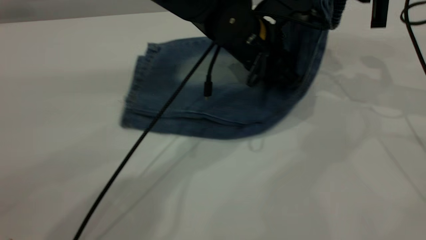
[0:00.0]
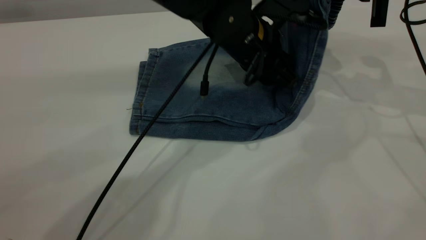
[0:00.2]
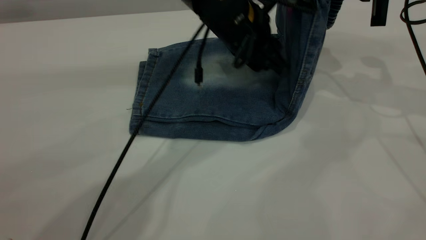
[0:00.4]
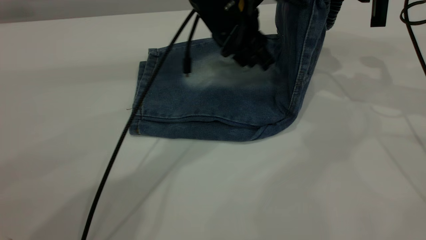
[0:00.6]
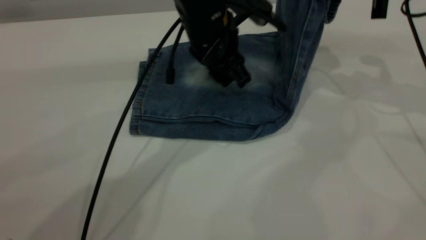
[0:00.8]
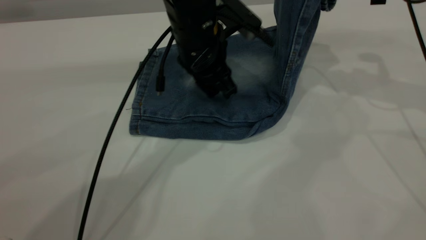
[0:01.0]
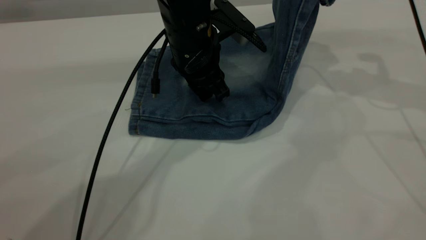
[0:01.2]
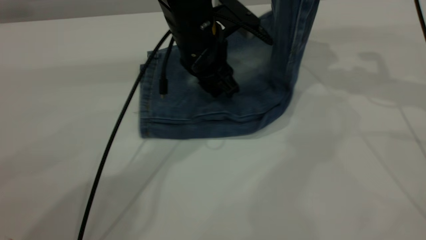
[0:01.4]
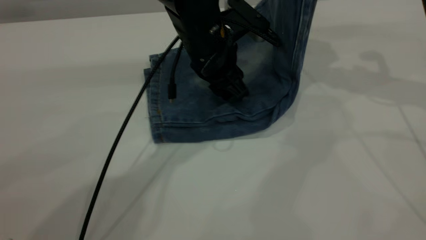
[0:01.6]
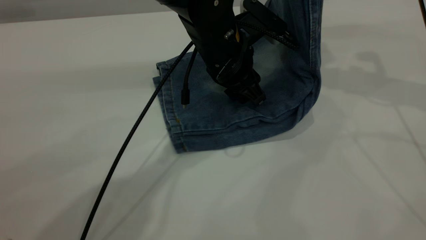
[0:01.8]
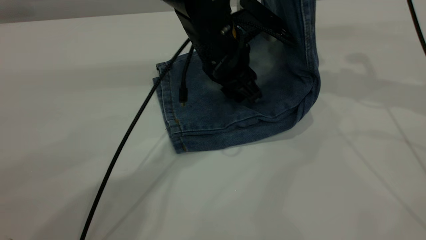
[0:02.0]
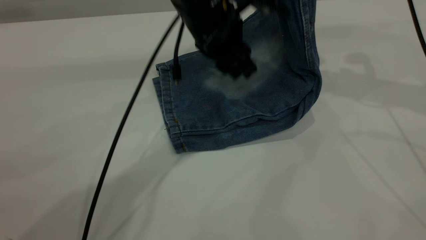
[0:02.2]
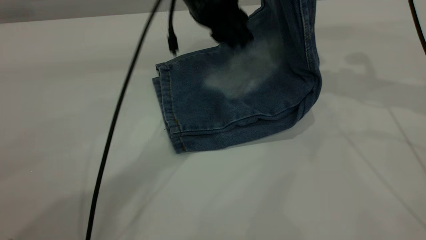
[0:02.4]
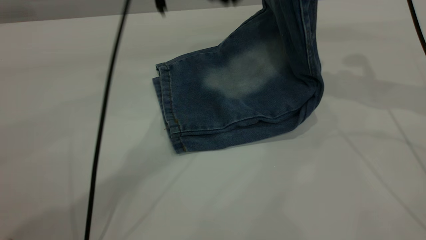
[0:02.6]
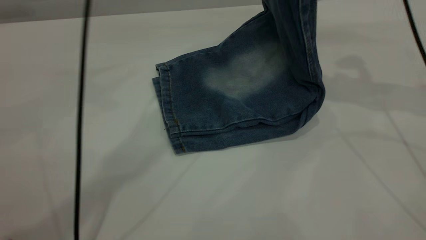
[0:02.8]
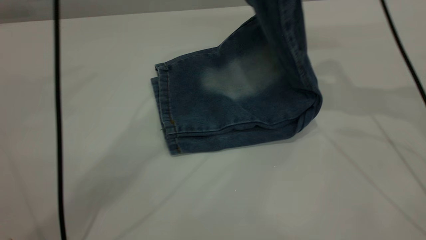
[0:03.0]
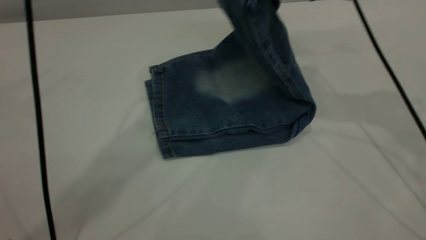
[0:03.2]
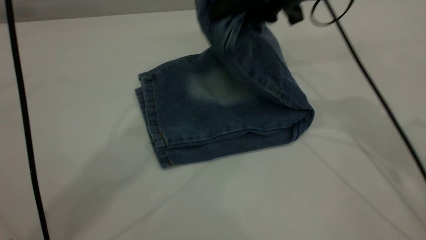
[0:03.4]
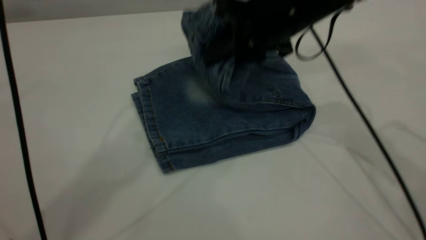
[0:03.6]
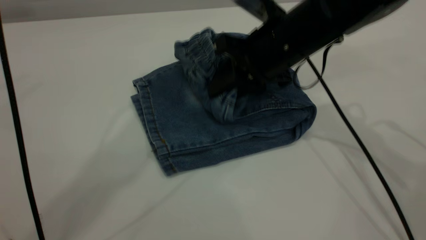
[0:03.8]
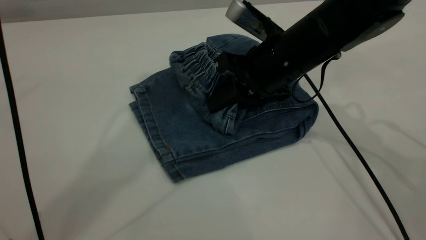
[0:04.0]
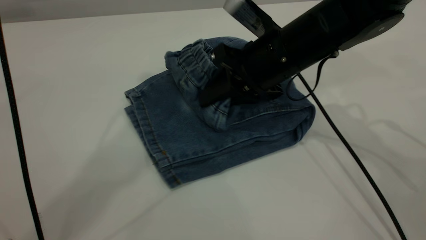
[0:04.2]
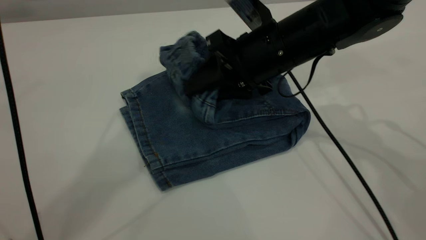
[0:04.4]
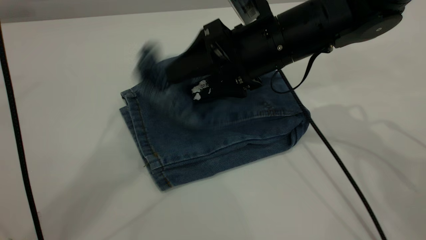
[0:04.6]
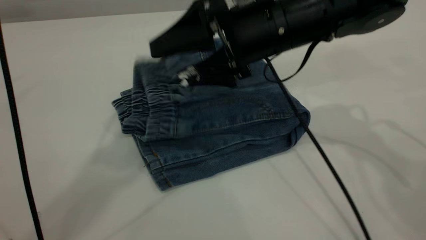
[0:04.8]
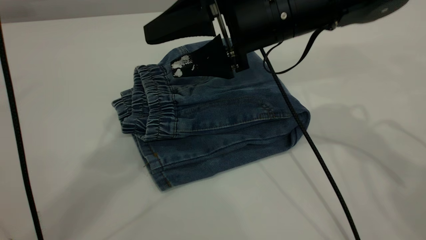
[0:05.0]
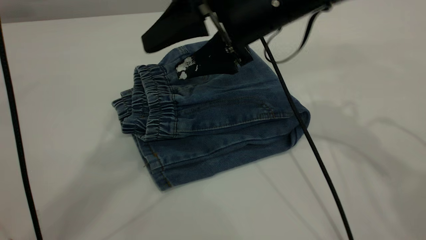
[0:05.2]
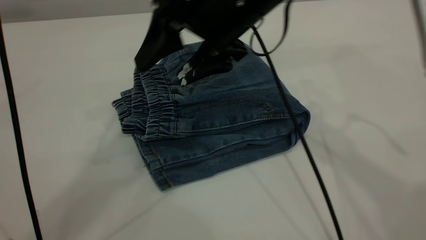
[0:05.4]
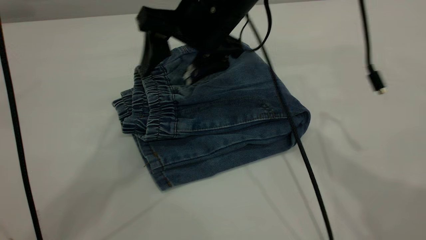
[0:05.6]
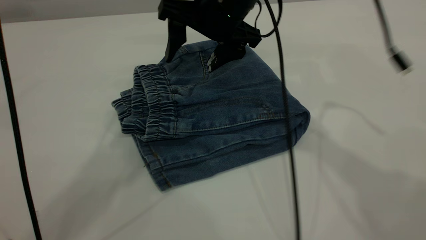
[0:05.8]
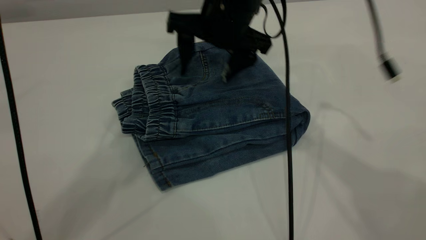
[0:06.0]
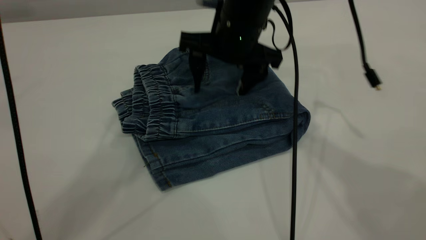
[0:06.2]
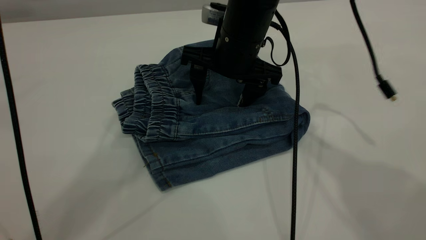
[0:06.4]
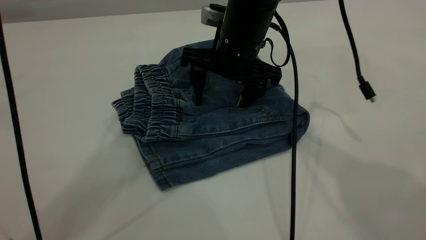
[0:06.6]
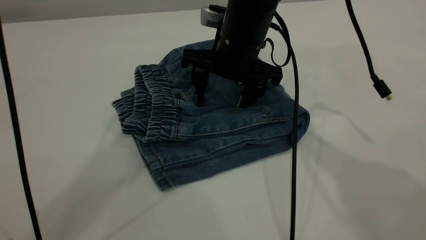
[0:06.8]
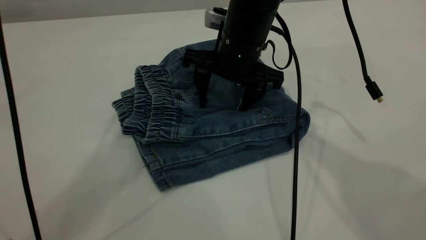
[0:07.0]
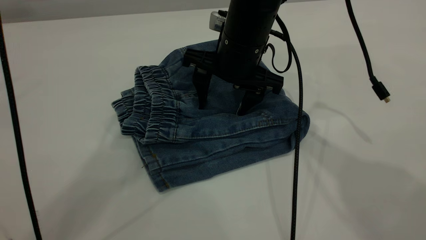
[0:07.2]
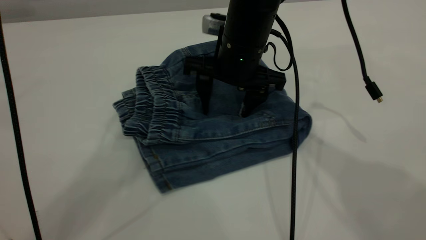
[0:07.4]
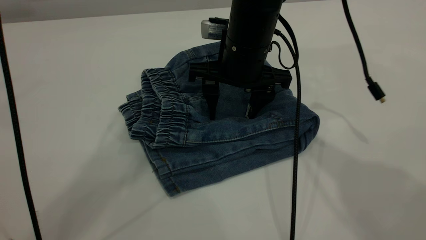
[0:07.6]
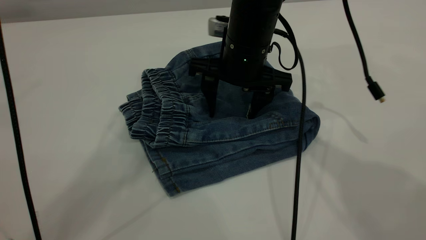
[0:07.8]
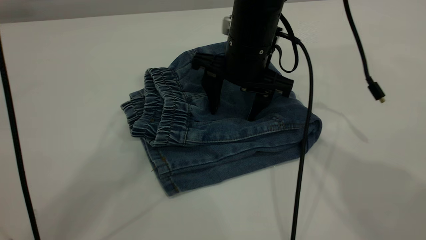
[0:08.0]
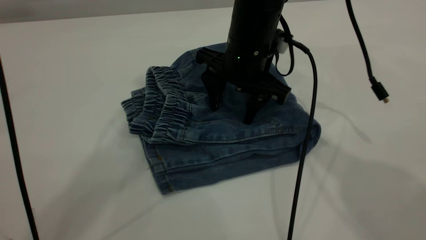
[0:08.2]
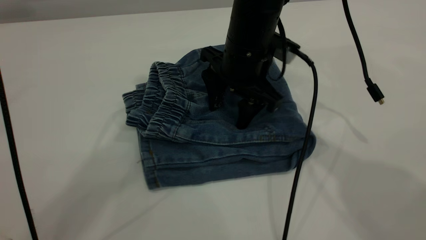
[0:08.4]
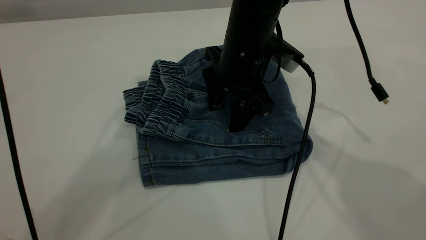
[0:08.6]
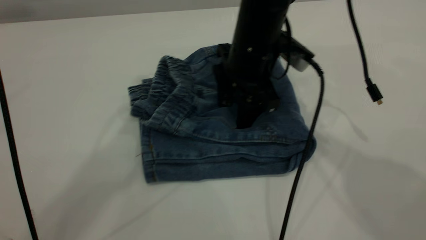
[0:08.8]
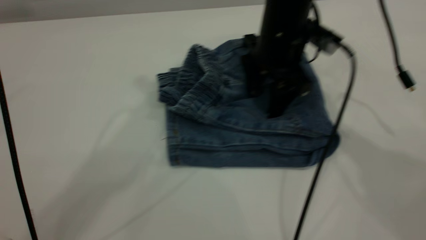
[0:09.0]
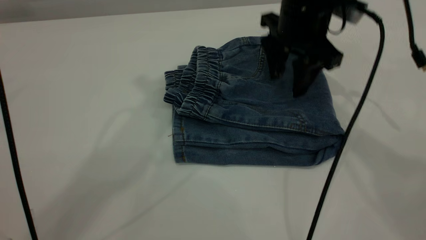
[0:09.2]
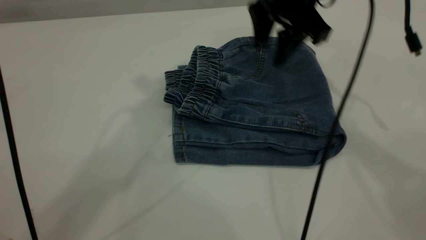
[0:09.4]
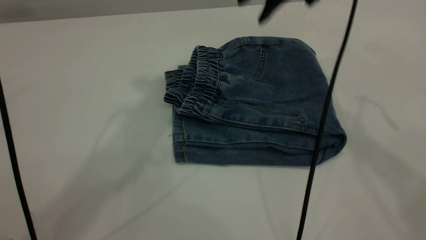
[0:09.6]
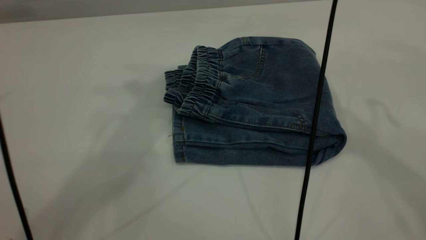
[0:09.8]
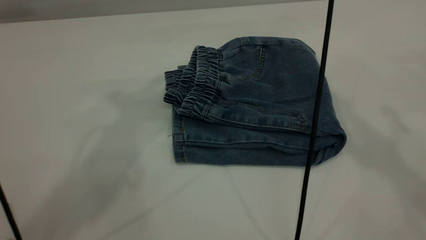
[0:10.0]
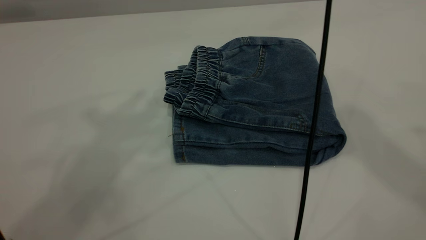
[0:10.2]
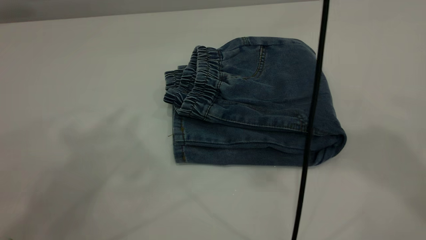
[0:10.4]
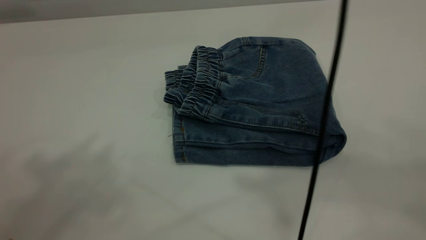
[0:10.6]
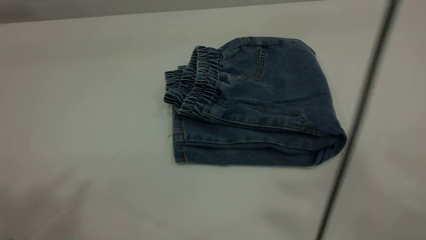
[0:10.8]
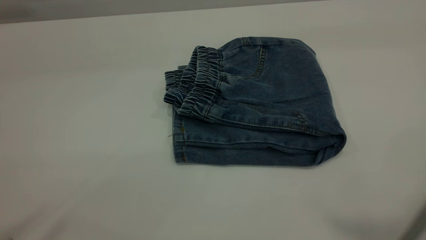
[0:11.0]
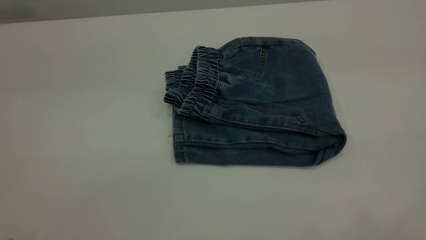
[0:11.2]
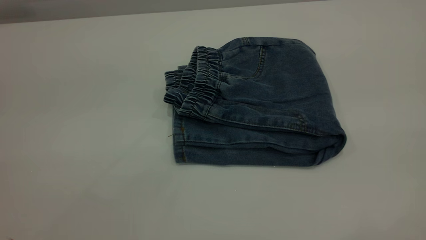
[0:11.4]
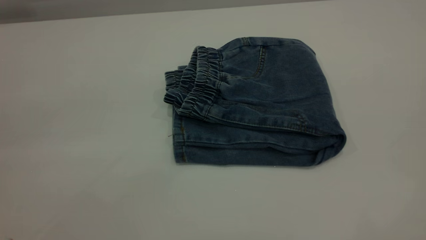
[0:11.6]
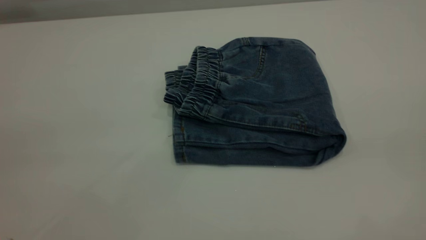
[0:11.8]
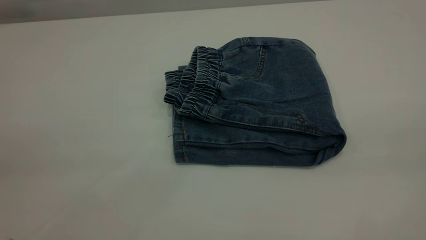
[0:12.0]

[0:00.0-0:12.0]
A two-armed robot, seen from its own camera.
Step, 0:00.0 to 0:04.8: Fold your pants from right to left.
0:00.0 to 0:01.6: The right gripper shifts roughly 5 cm upward; the left gripper travels to the left by about 5 cm.
0:01.6 to 0:03.0: The right gripper shifts approximately 5 cm to the left; the left gripper shifts approximately 30 cm upward.
0:03.0 to 0:04.4: The left gripper goes roughly 5 cm upward. The right gripper moves downward and to the left, some 15 cm, and opens up.
0:04.4 to 0:06.0: The right gripper moves some 10 cm, and opens its fingers.
0:07.6 to 0:09.0: The right gripper travels to the right by about 5 cm.
0:09.0 to 0:10.4: The left gripper shifts some 15 cm backward, to the left and upward. The right gripper heads upward, covering some 35 cm.
0:10.4 to 0:12.0: The right gripper goes roughly 35 cm backward and to the right.

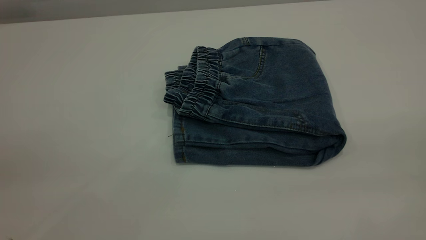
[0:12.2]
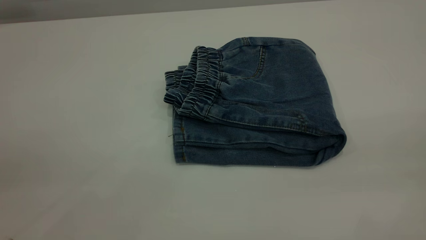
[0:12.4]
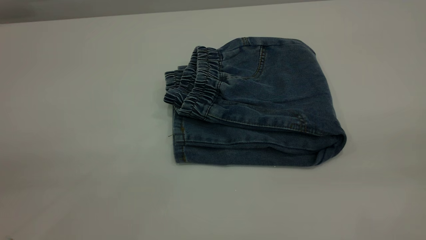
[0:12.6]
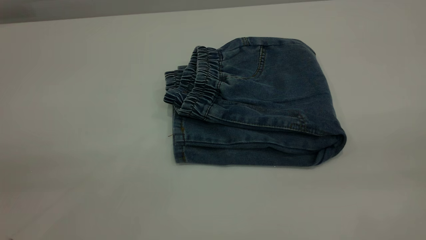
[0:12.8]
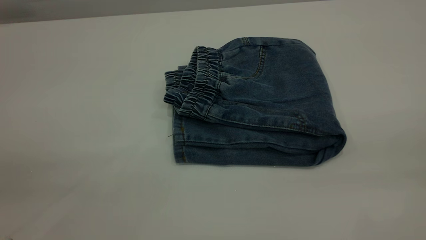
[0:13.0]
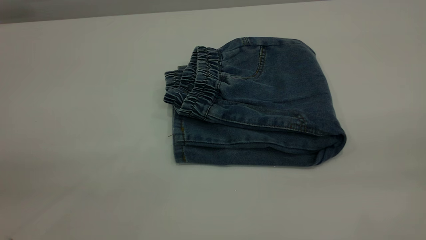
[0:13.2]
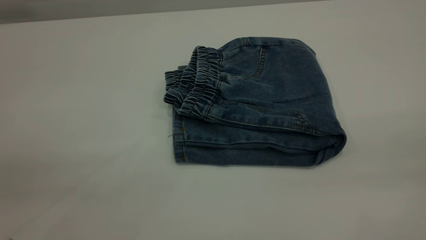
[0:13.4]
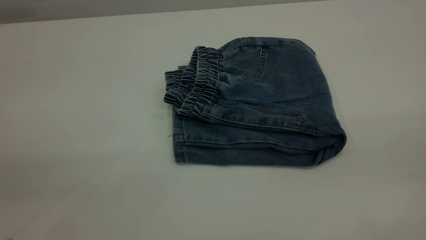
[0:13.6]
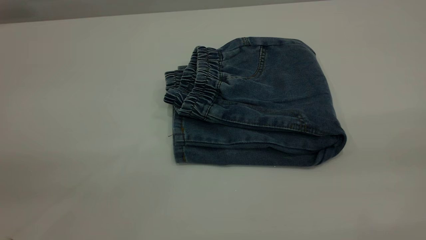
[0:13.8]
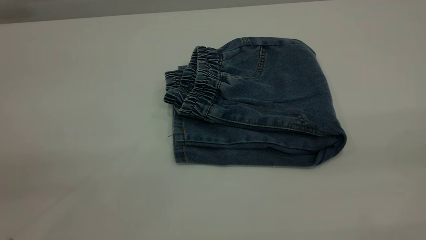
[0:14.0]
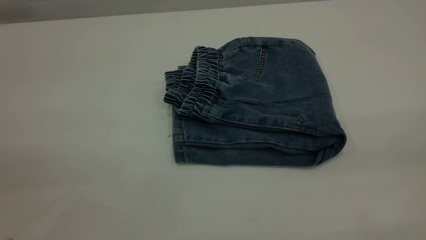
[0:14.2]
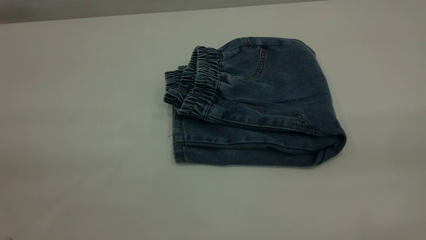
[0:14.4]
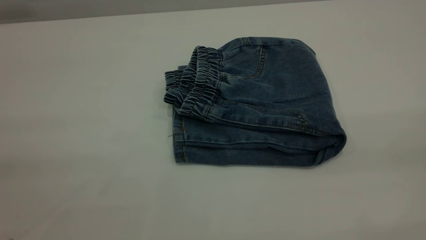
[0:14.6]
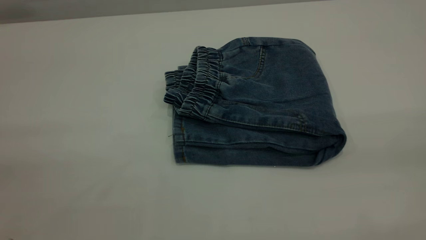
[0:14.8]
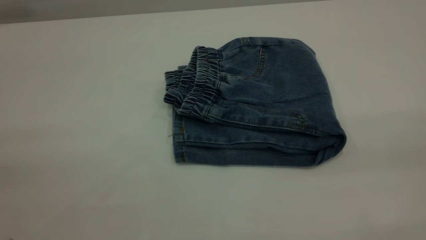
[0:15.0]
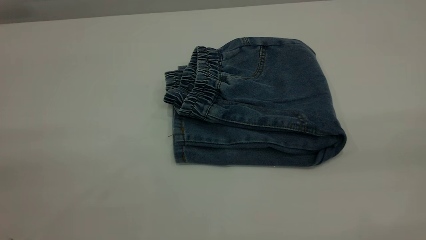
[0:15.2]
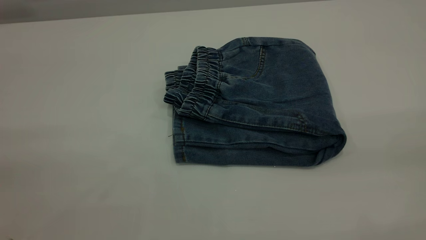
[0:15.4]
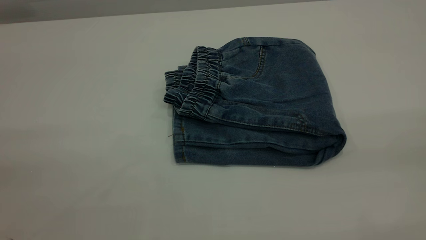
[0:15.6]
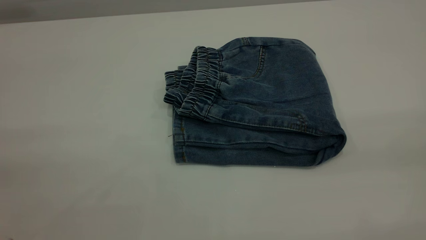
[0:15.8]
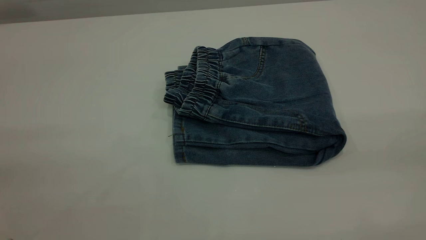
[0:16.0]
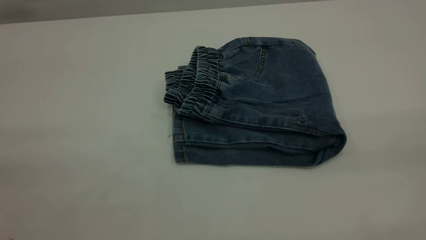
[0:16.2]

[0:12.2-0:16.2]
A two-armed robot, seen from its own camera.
0:14.8 to 0:16.2: Both grippers stay put.

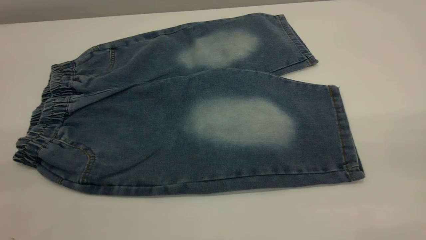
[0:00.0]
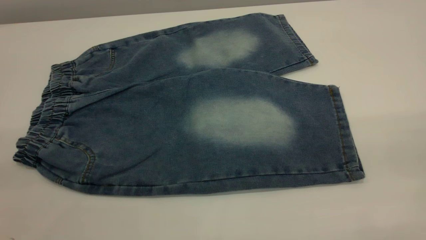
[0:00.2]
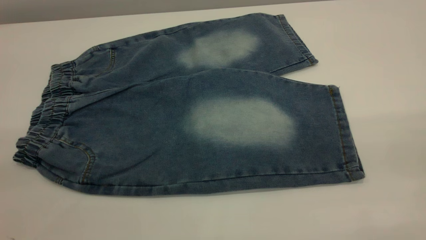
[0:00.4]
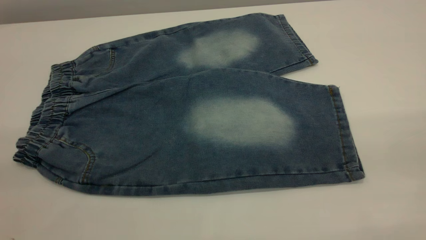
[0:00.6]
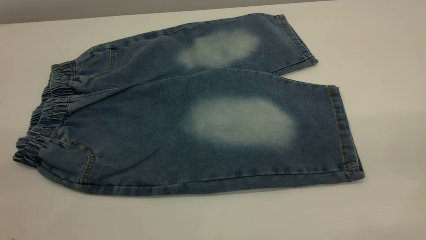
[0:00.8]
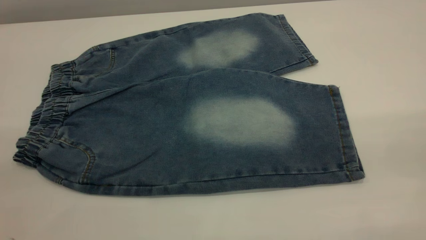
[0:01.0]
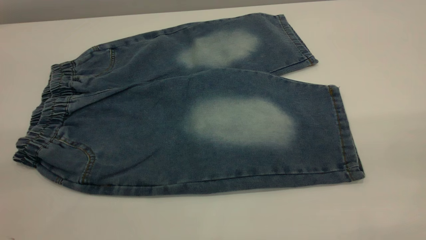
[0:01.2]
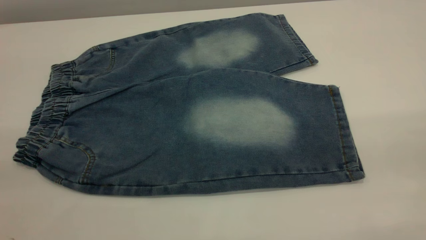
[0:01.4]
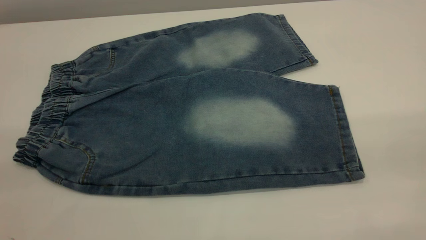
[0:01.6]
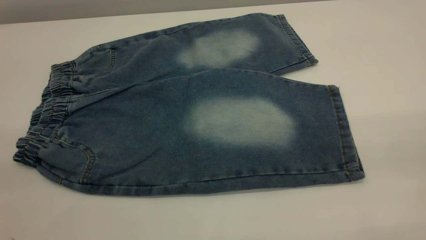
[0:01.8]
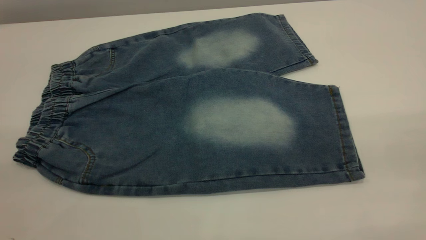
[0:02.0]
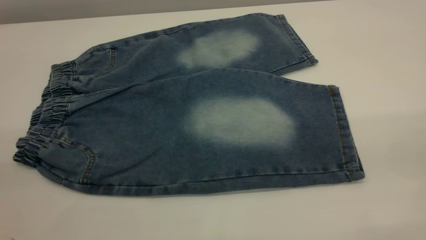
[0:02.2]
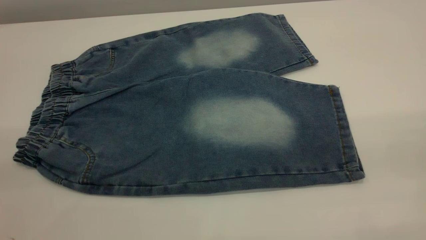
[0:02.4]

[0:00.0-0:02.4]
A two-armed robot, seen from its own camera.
0:00.0 to 0:02.4: Both grippers stay put.
